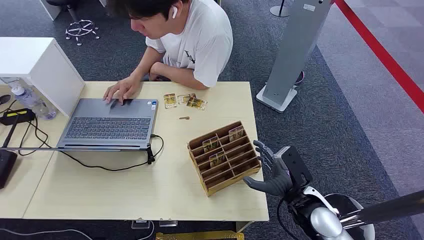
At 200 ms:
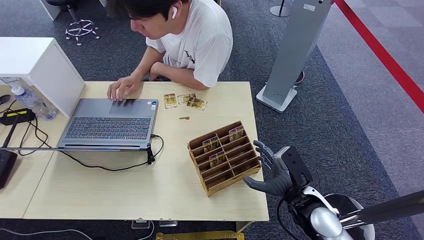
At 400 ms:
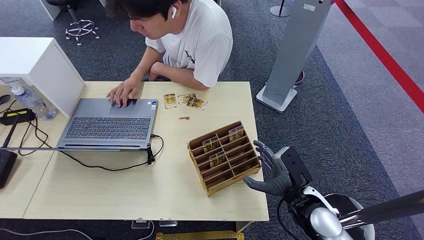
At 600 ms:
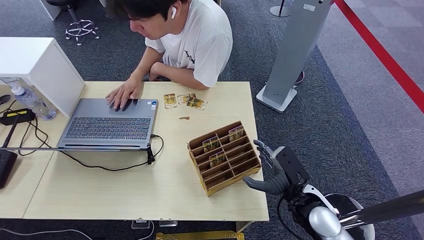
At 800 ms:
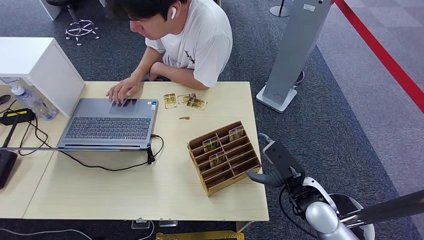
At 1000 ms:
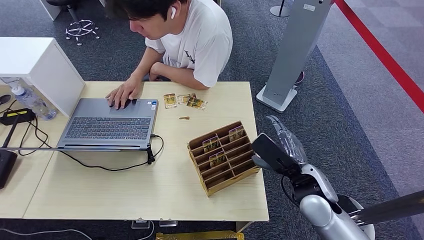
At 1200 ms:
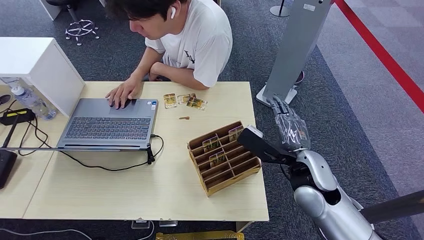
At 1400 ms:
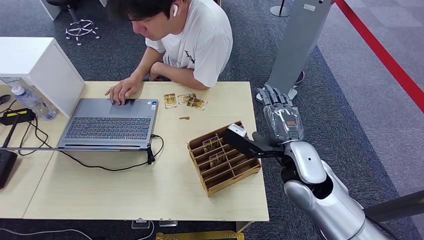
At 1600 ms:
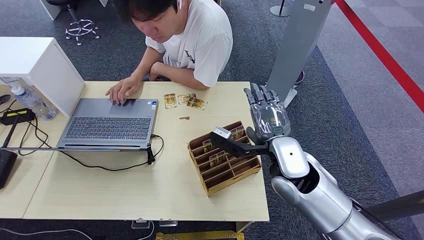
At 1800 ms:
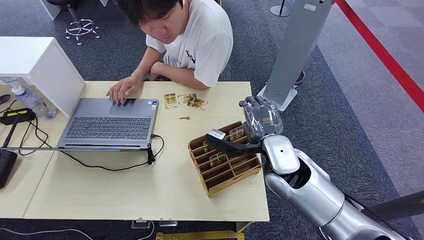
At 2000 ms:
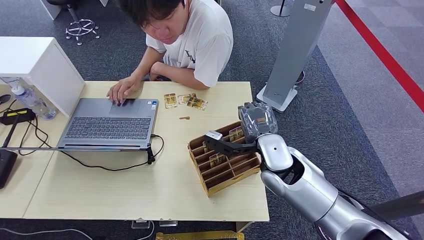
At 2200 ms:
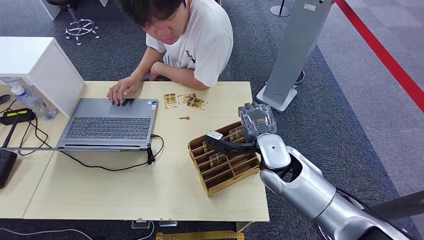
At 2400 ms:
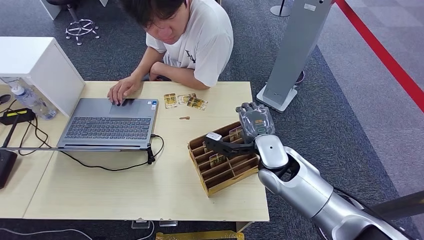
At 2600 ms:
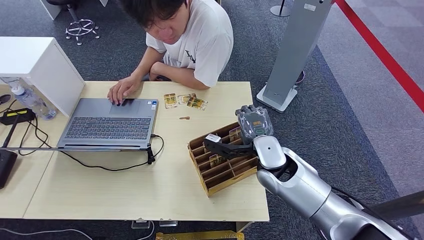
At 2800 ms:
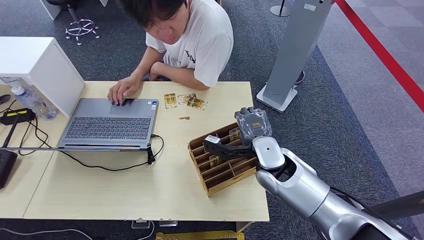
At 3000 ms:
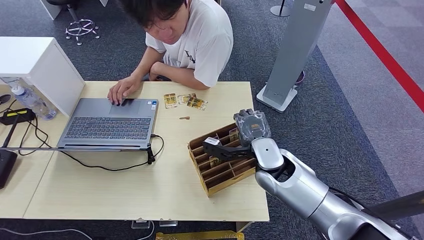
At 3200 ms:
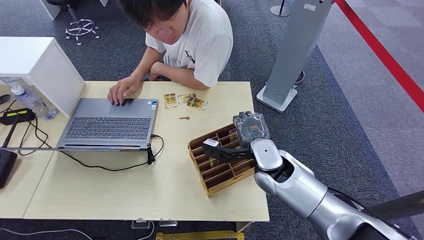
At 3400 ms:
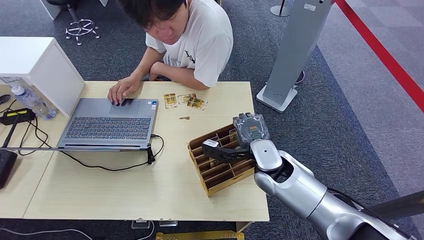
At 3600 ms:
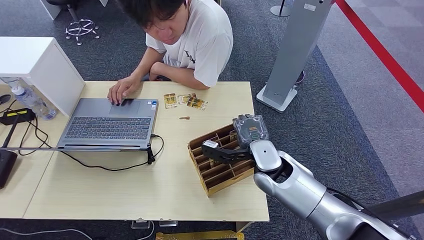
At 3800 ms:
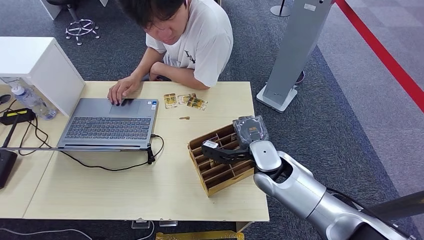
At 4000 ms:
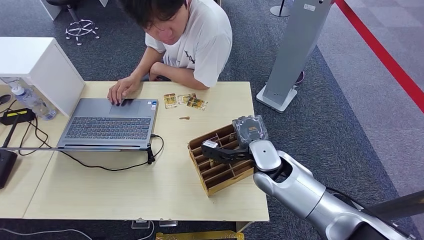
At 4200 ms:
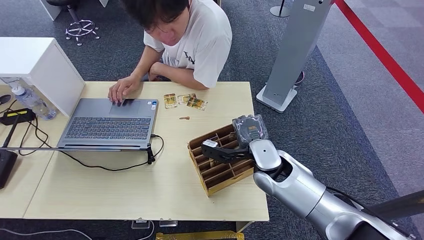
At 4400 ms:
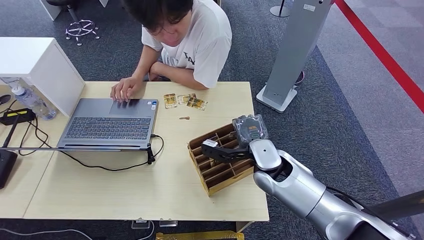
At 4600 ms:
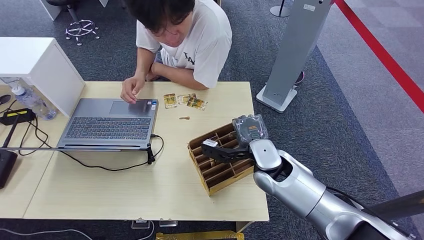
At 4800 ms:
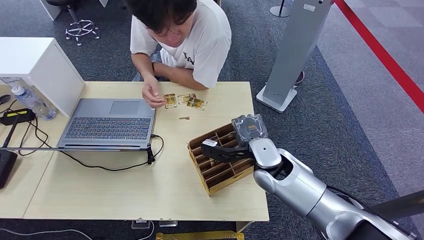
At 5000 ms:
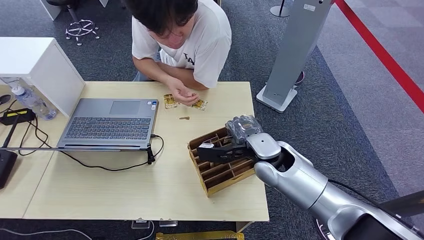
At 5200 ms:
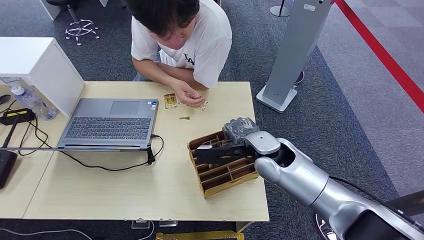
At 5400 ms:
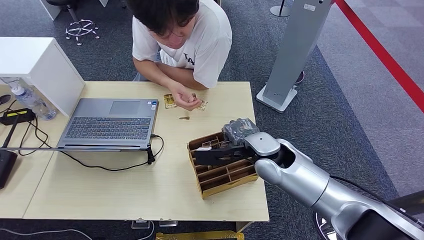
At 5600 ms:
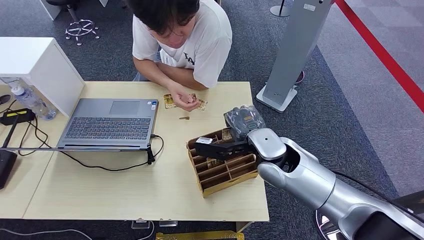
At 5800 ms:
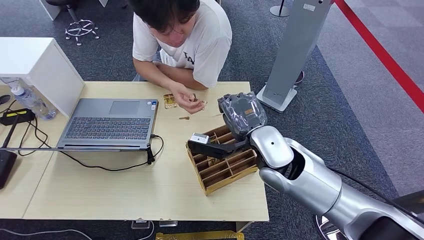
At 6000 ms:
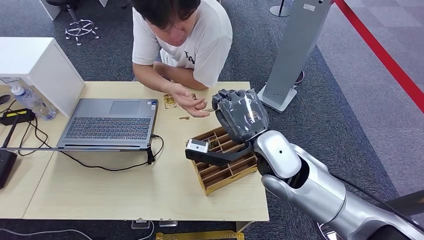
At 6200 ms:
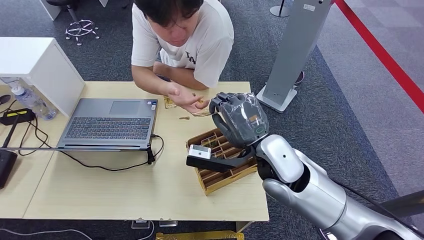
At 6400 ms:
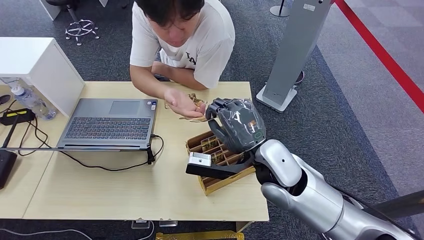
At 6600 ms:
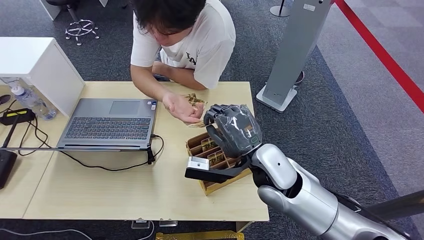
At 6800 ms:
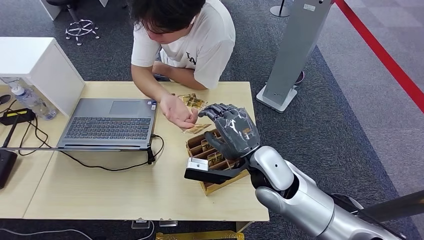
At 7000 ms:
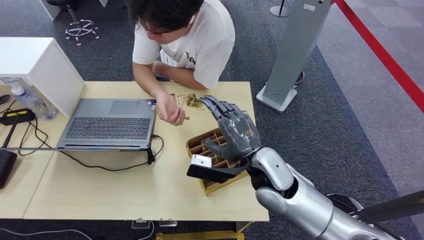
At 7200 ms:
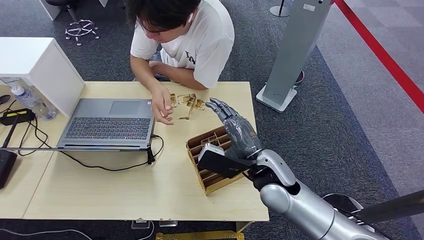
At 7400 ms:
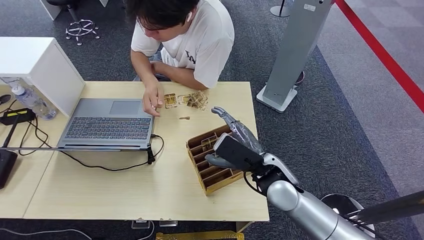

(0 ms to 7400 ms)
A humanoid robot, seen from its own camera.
Step, 0 ms - 5600 ms: Pick up the room card from the card holder.
Step, 5800 ms - 7400 ms: Hand the room card to the target.
1400 ms - 3000 ms: The right hand heads to the left, covering some 5 cm.
3000 ms - 4400 ms: Neither hand changes place.
4400 ms - 6000 ms: The right hand goes approximately 10 cm upward.
6000 ms - 7400 ms: The right hand travels downward by roughly 10 cm.
